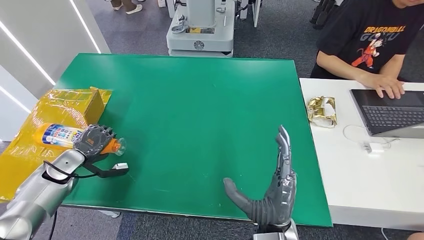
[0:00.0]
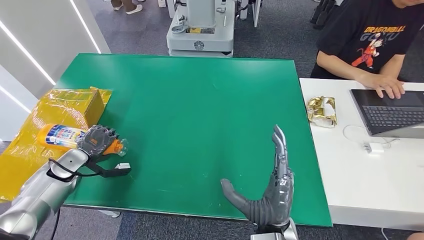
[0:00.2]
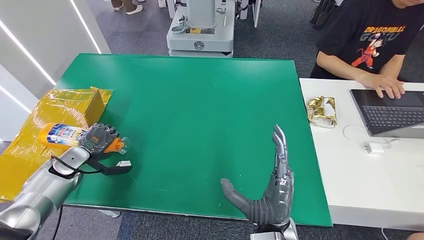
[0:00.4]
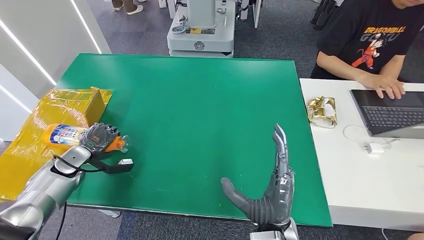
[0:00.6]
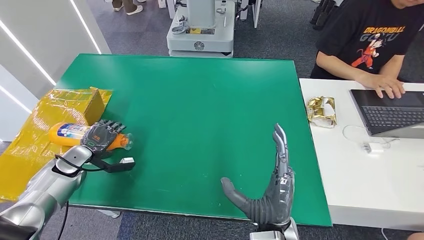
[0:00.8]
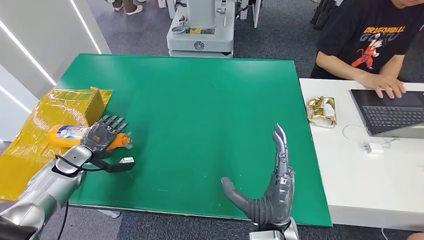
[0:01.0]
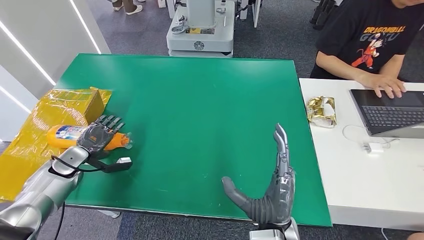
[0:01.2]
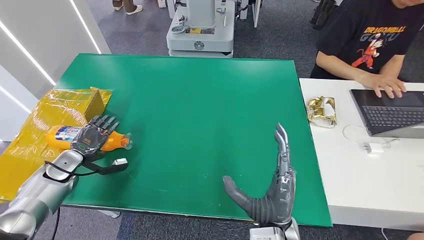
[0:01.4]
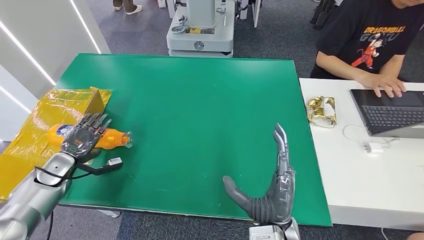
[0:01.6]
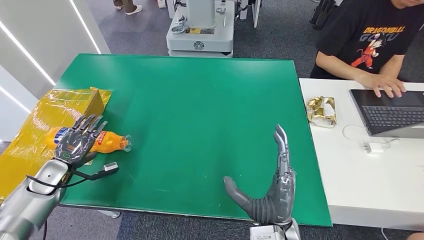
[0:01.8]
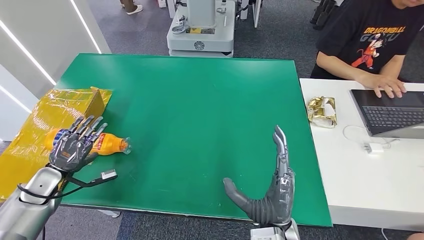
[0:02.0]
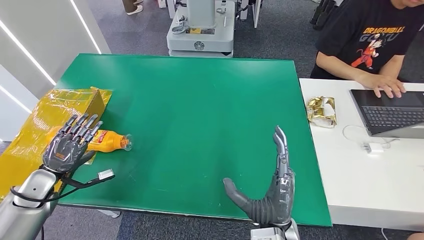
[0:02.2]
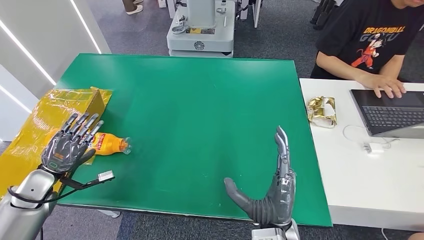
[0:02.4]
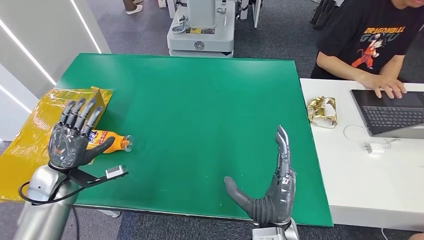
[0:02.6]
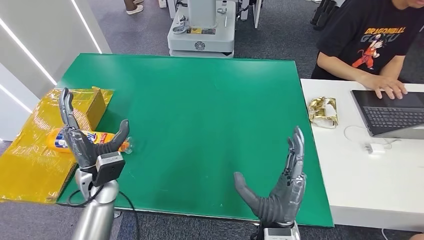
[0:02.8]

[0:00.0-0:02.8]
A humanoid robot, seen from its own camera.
Step, 0:00.0 to 0:02.8: Turn the bottle to the front side.
0:00.0 to 0:01.4: The hands move only a little.
0:01.4 to 0:02.8: The left hand moves to the right, roughly 20 cm.

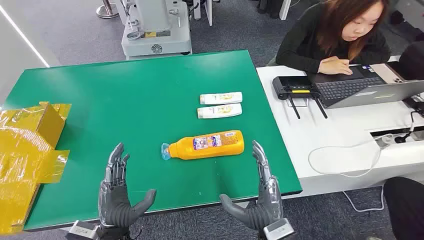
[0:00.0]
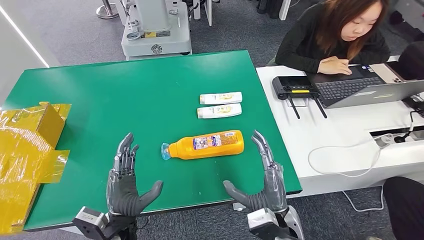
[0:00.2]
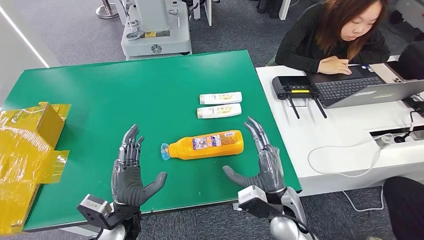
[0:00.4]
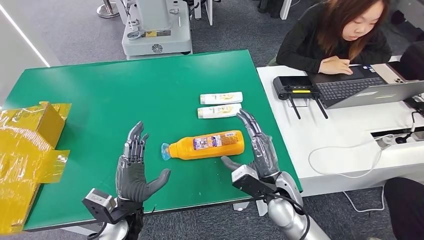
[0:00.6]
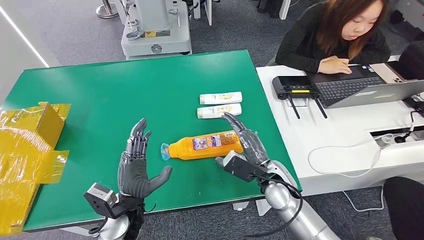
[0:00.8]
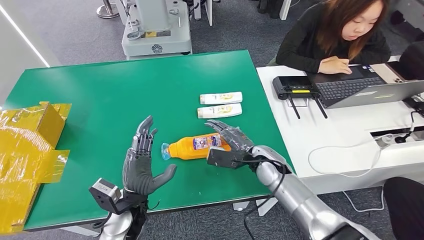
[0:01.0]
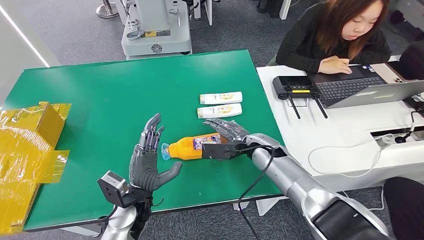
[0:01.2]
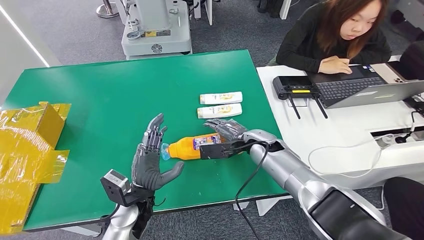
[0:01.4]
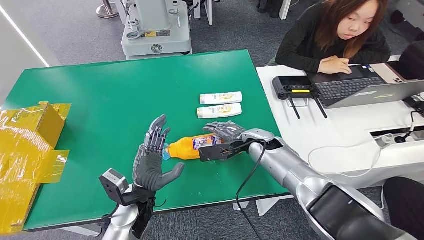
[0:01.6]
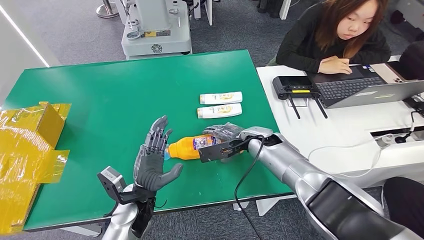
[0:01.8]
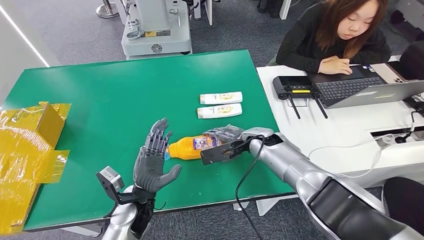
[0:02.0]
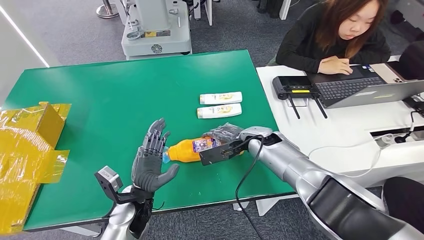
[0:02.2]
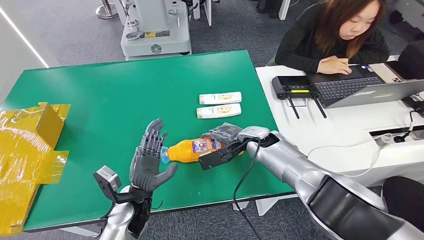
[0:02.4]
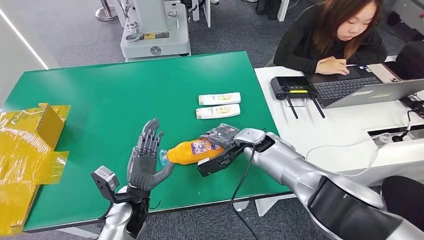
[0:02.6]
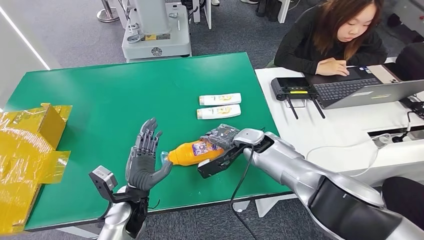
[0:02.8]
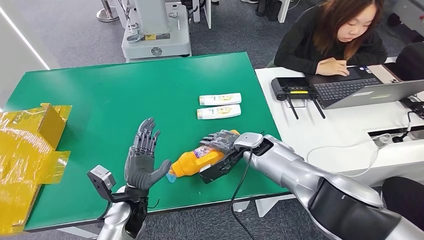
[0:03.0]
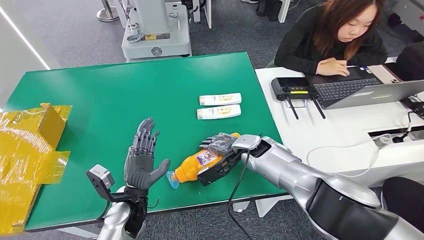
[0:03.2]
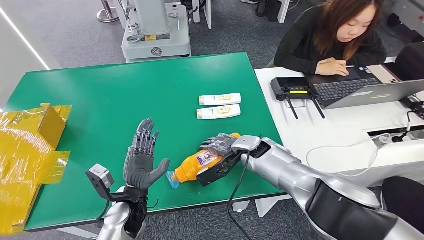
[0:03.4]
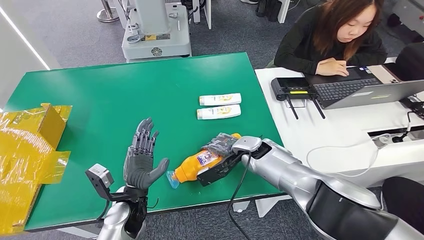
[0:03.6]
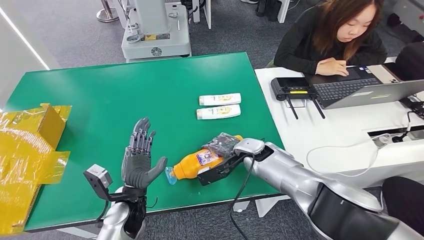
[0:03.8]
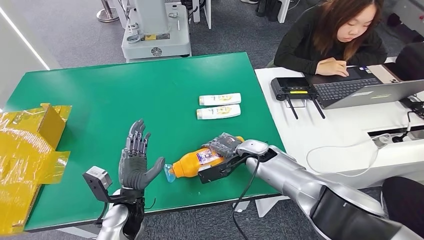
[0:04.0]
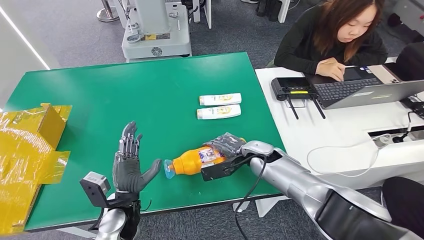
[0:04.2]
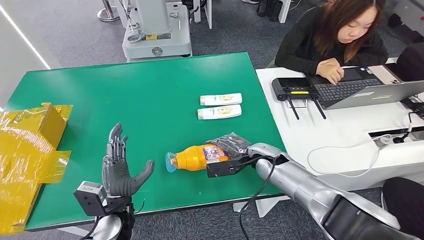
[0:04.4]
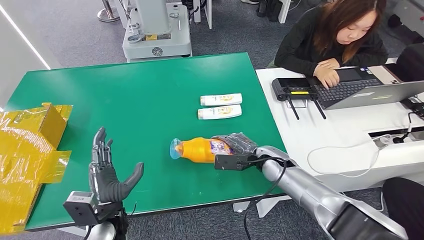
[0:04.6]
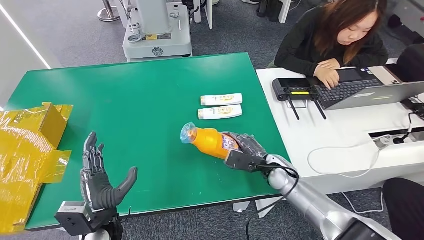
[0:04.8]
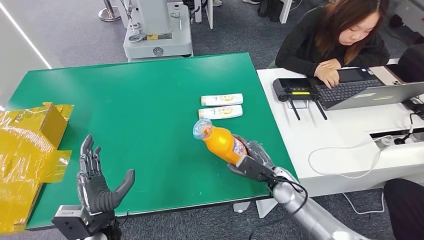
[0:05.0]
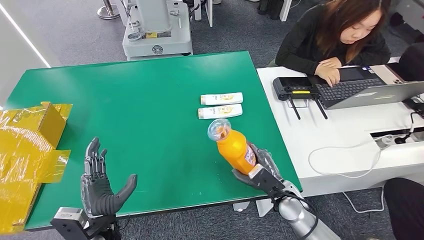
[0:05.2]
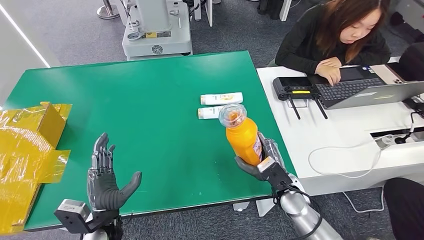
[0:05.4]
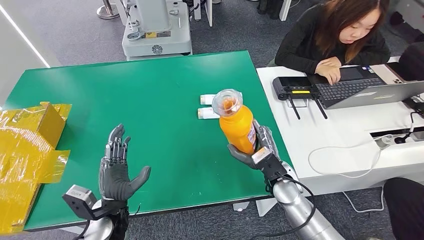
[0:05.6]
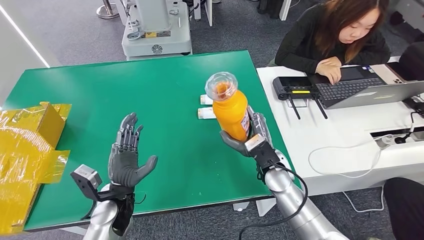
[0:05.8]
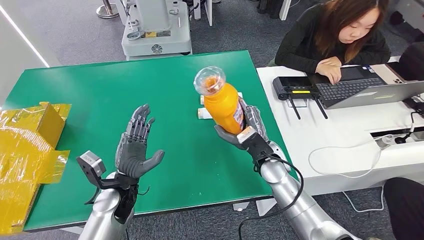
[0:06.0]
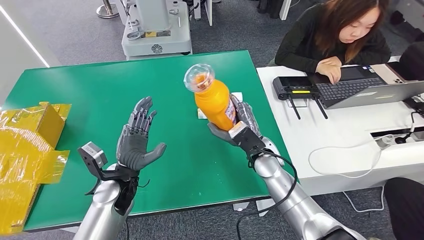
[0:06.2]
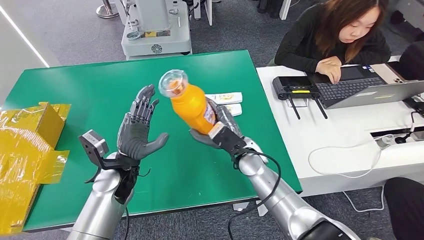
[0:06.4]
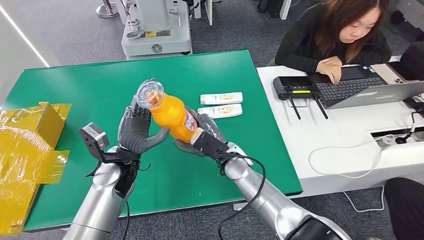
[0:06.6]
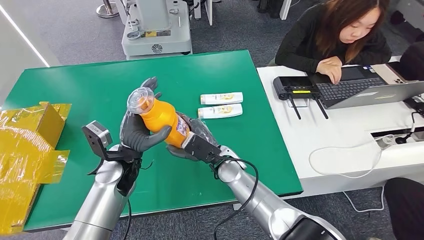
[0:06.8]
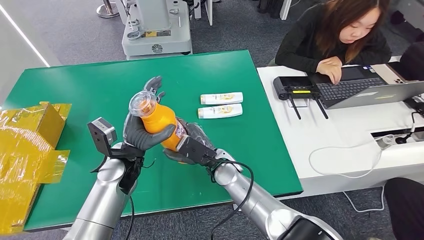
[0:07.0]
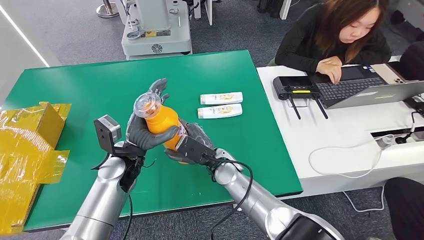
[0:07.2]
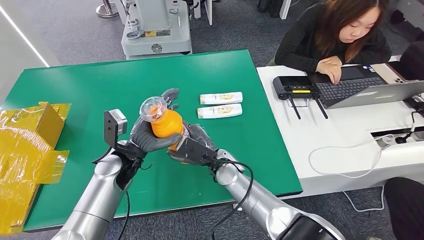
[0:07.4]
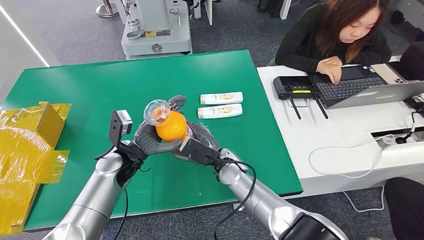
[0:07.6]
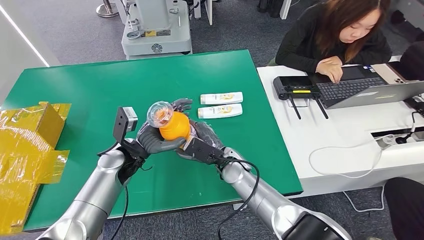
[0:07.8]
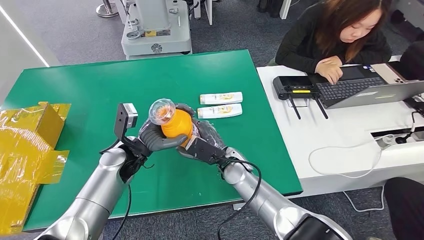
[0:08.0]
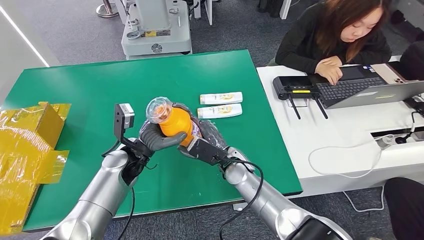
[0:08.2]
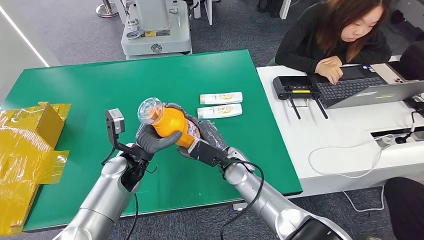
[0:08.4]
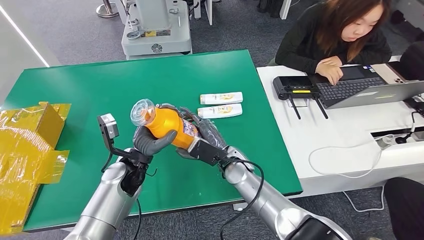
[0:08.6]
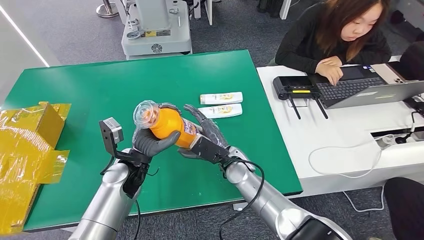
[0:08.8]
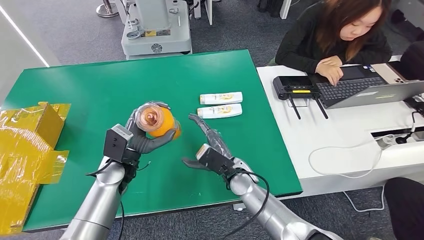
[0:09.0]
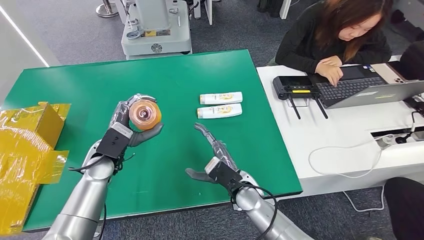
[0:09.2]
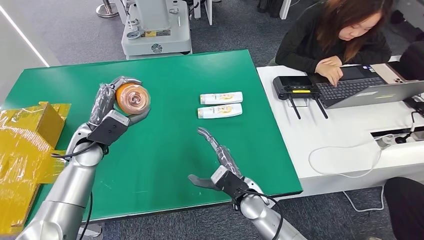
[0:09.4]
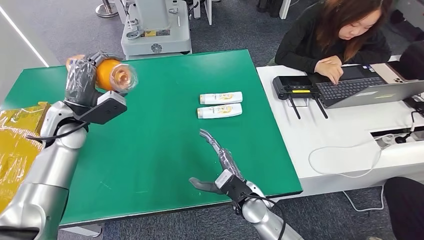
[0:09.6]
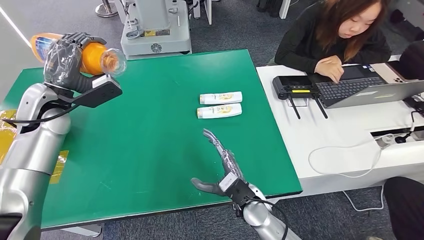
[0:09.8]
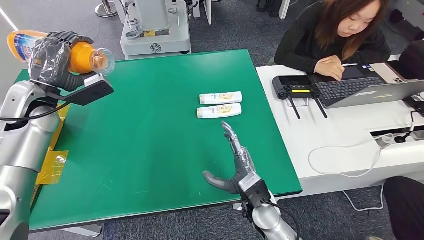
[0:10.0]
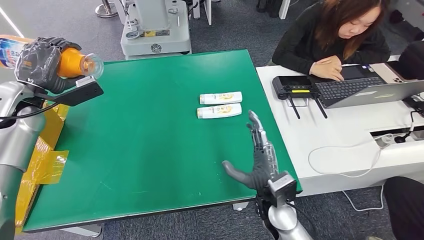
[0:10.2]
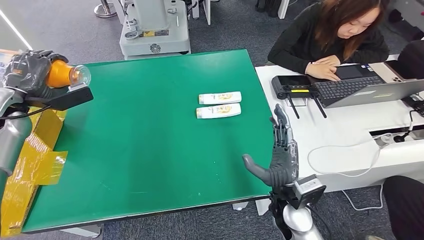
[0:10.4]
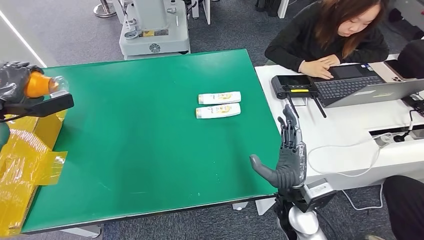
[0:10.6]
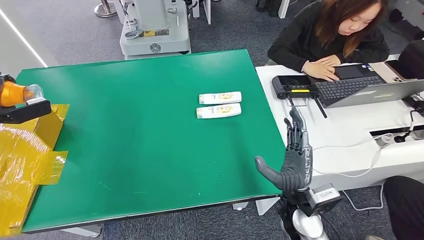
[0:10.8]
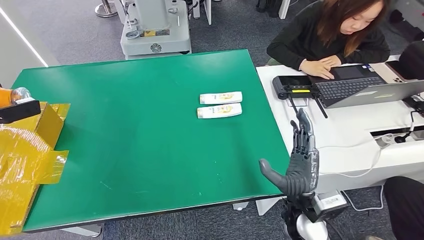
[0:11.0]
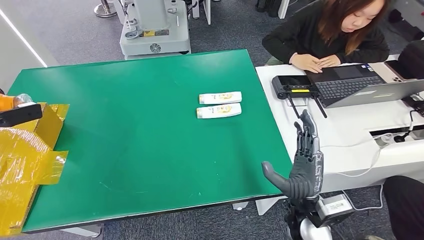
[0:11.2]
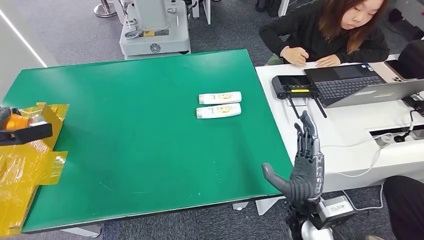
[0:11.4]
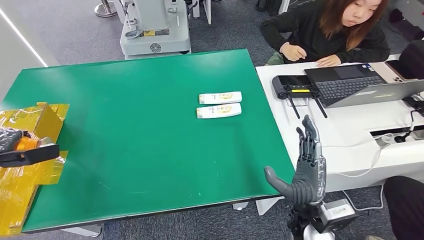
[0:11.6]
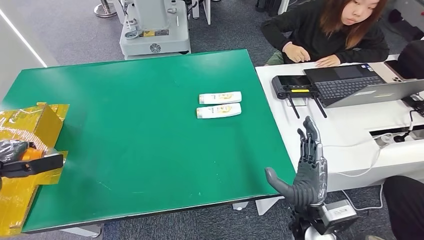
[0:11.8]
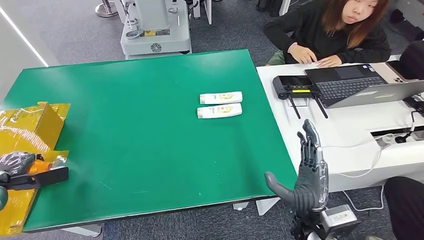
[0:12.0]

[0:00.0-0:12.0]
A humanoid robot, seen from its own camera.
Step, 0:00.0 to 0:05.6: Pick up the bottle from the table.
0:03.0 to 0:04.4: The right hand changes place by approximately 5 cm.
0:06.0 to 0:07.6: The left hand travels forward by roughly 5 cm, while the right hand is displaced to the left by some 10 cm.

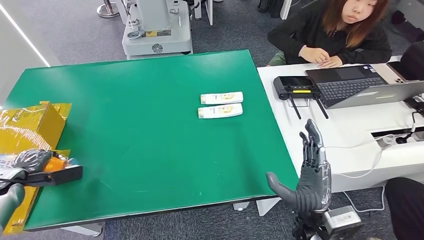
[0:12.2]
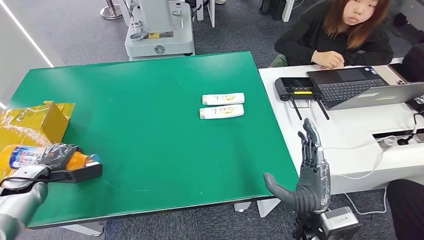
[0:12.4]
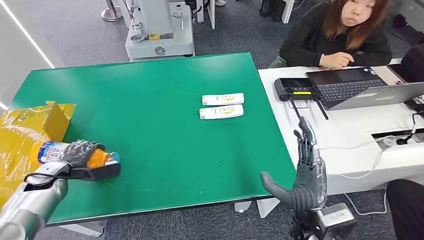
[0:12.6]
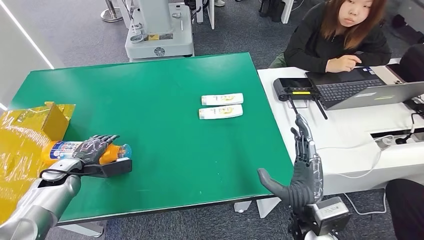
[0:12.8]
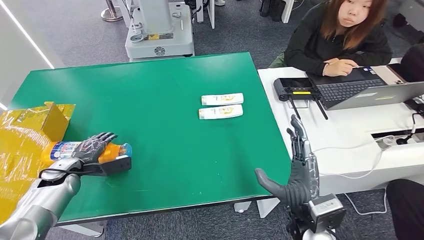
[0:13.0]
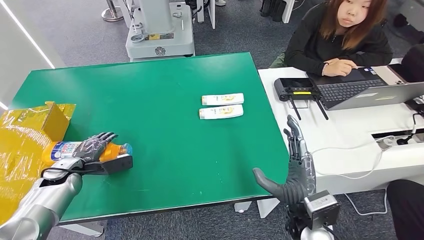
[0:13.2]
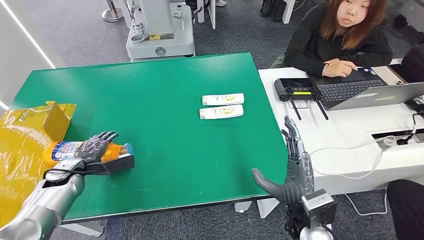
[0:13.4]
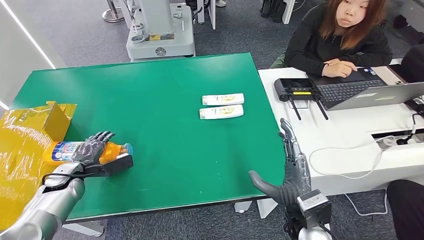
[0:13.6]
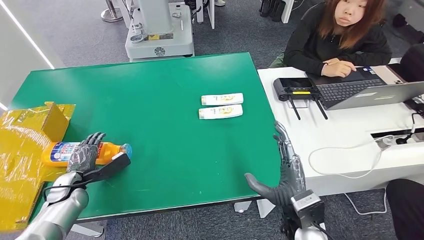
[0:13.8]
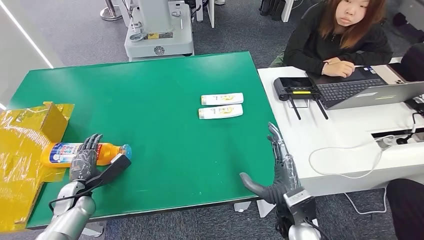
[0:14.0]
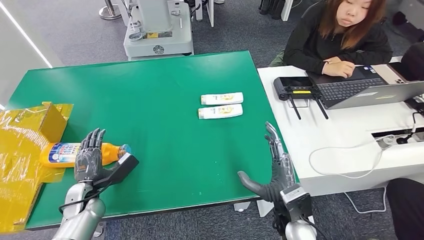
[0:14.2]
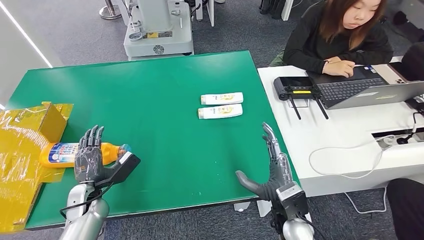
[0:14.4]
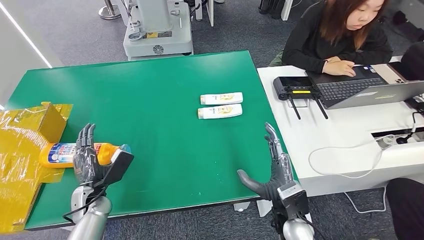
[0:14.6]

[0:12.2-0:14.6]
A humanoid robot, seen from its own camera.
Step, 0:12.2 to 0:14.6: Turn the bottle to the front side.
